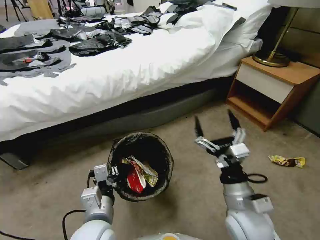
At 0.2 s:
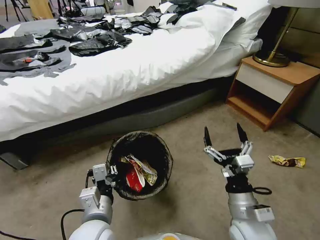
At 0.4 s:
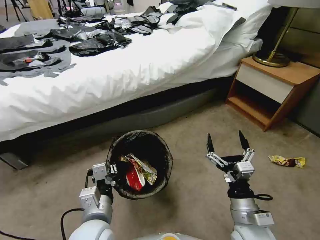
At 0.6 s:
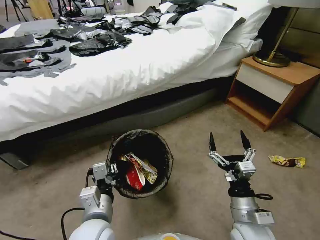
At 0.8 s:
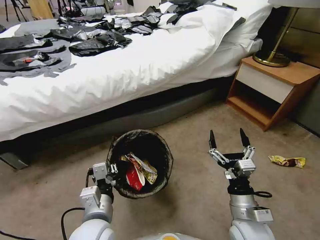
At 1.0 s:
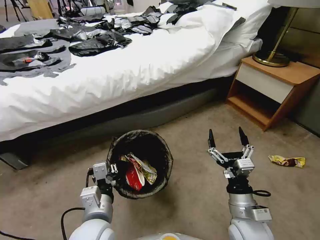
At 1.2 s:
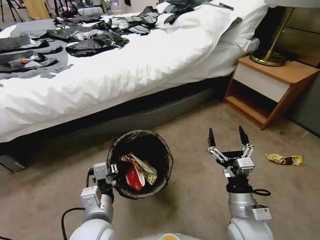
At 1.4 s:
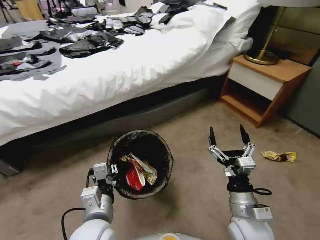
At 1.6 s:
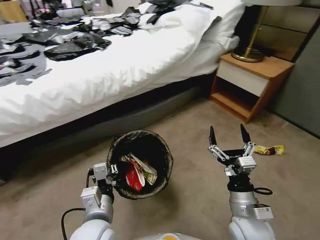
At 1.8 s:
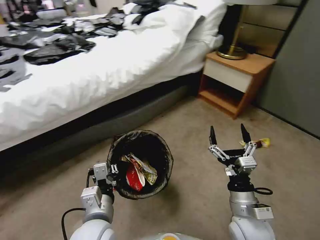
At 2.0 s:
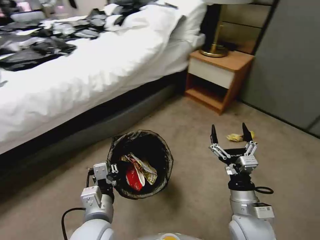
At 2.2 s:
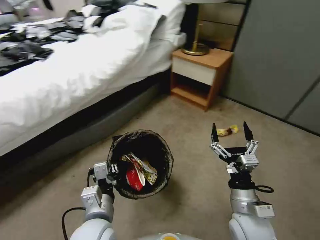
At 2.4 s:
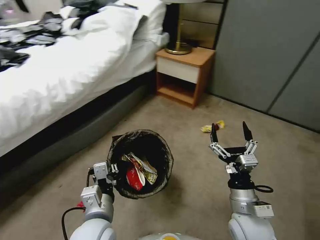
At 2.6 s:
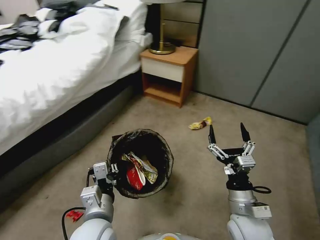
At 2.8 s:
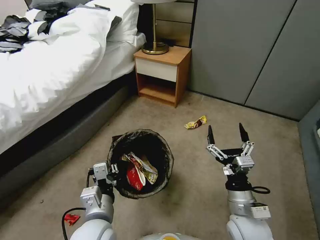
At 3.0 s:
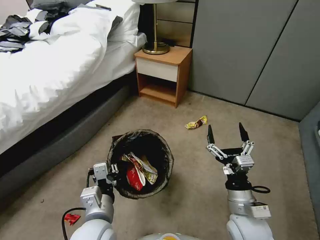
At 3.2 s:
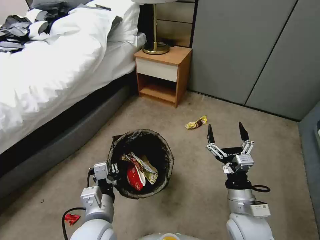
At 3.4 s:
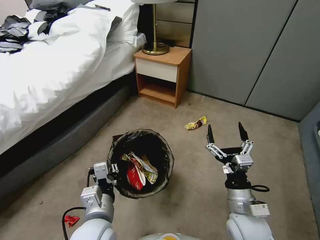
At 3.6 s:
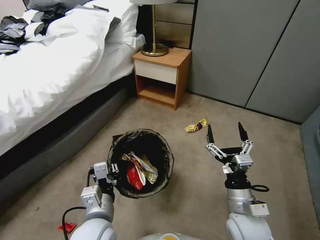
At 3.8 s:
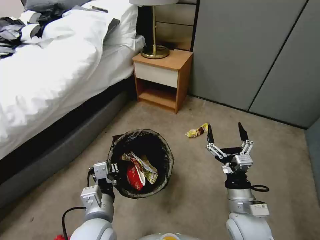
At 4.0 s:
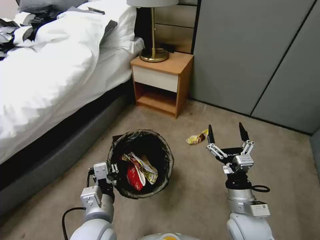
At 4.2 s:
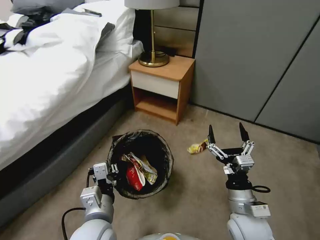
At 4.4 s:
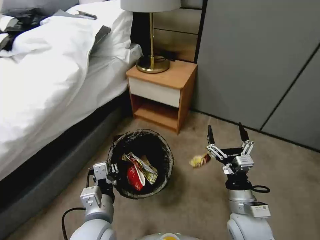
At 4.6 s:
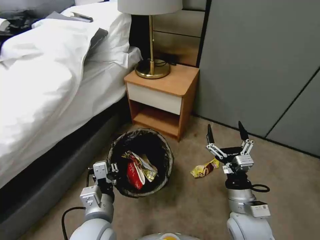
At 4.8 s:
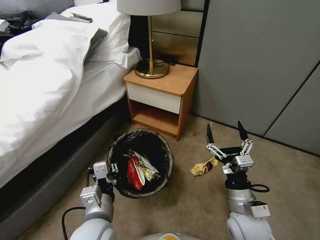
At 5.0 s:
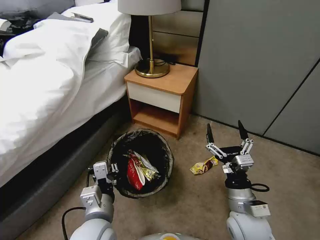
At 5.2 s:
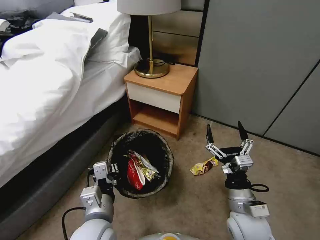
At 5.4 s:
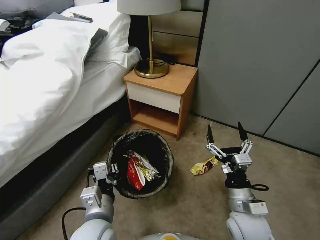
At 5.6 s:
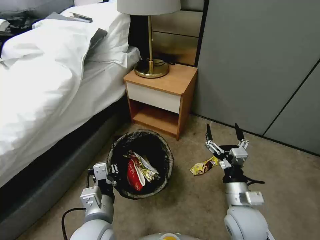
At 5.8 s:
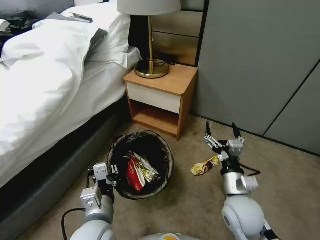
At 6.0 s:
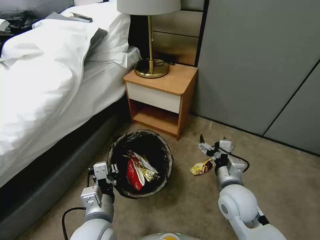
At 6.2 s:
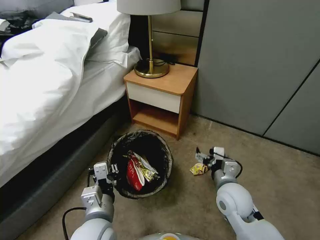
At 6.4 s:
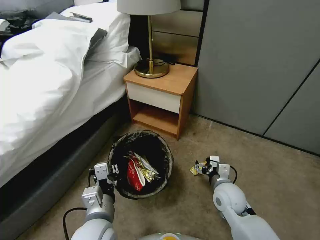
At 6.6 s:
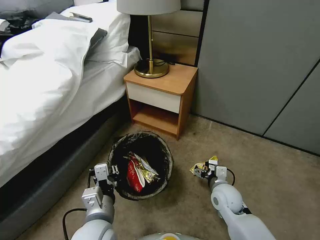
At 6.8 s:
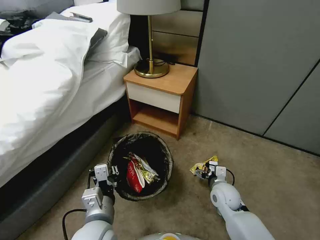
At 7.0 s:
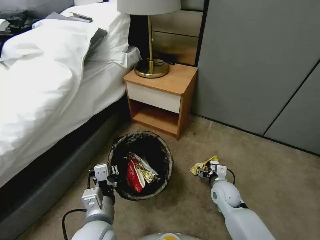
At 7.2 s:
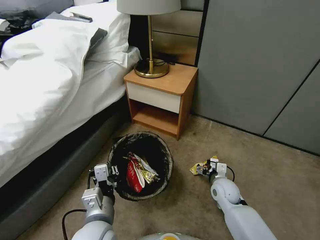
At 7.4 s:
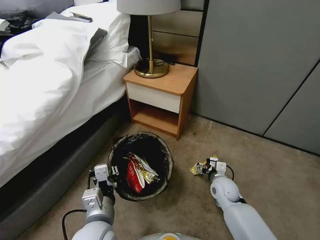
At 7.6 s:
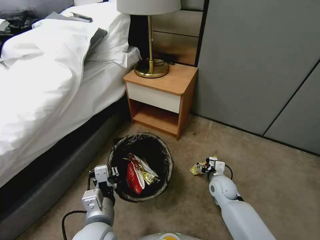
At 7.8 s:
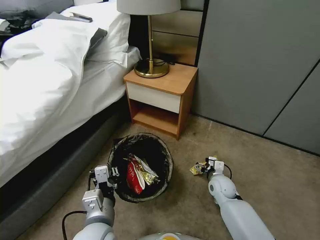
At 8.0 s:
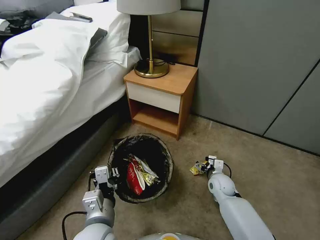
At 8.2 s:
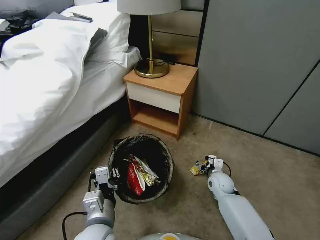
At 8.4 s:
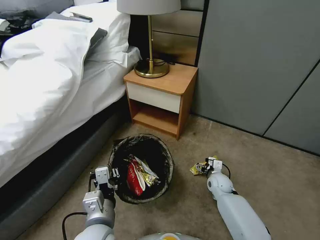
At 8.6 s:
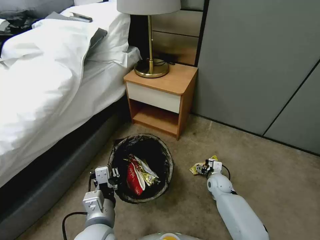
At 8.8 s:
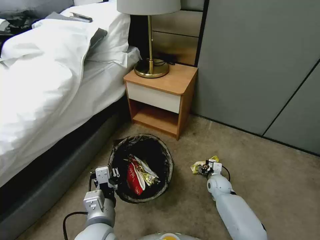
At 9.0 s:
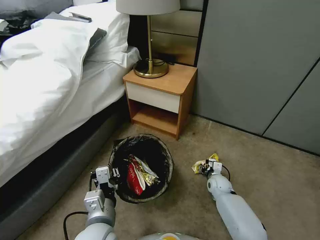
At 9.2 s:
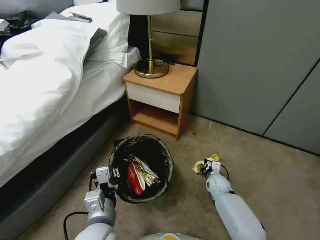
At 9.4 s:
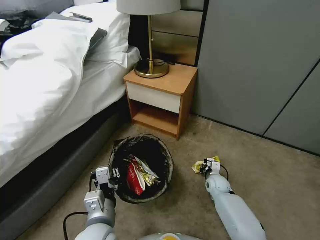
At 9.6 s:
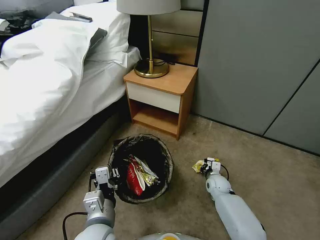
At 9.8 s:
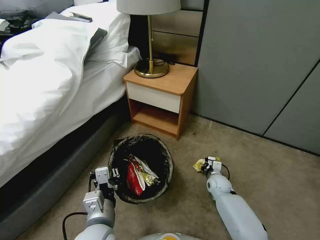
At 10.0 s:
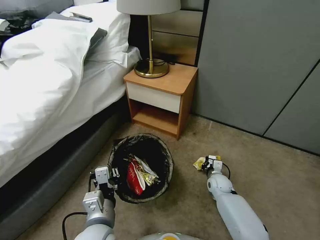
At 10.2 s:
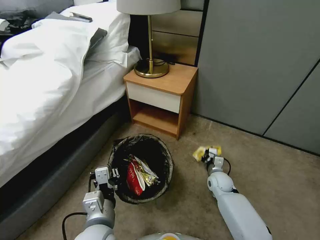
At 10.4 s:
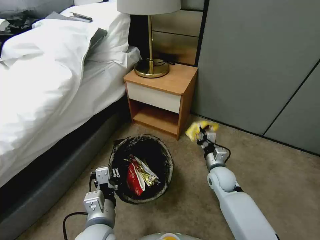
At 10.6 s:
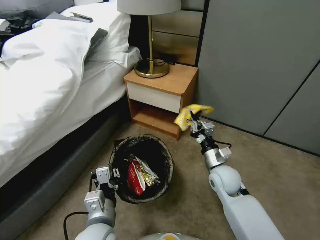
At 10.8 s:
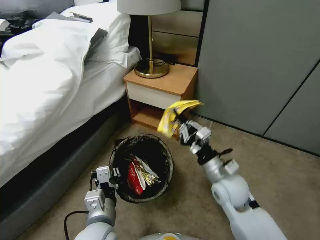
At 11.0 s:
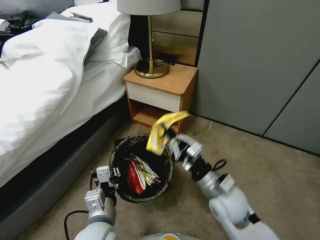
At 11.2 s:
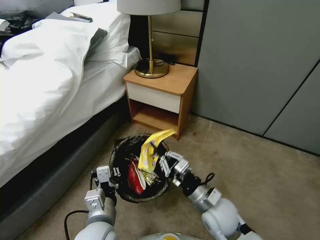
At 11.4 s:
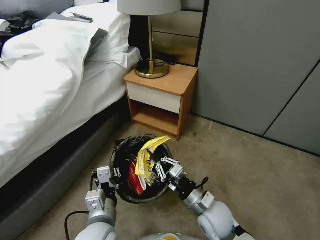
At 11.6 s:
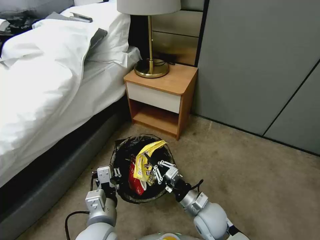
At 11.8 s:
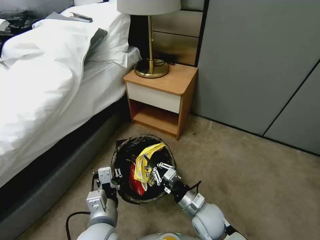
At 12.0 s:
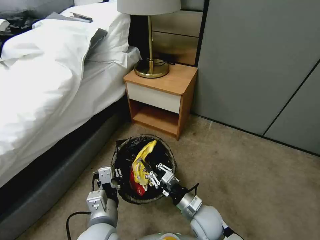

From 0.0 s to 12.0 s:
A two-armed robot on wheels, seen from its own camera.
Task of the whole recording: Pick up the trash bin, then pick up the garbage from the floor and place it into the trash bin.
From 0.0 s to 1.6 s: The right gripper moves roughly 5 cm.
From 4.4 s to 6.0 s: The right gripper heads forward, covering roughly 5 cm.
From 6.0 s to 7.6 s: The right gripper is displaced downward and forward by roughly 20 cm.
From 7.6 s to 9.0 s: The right gripper moves downward, about 10 cm, and closes up.
From 9.0 s to 10.4 s: The right gripper shifts some 10 cm upward, and closes its fingers.
From 10.4 s to 12.0 s: The right gripper shifts some 15 cm backward and to the left.

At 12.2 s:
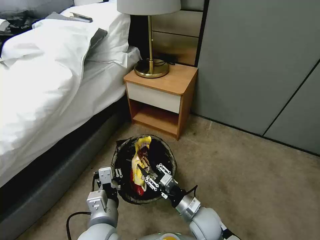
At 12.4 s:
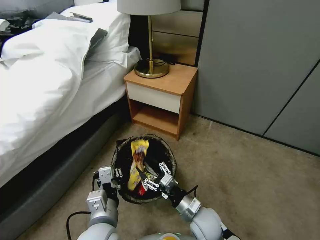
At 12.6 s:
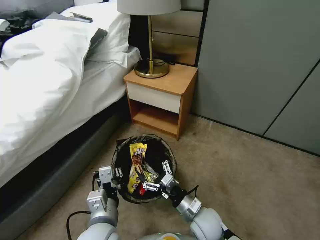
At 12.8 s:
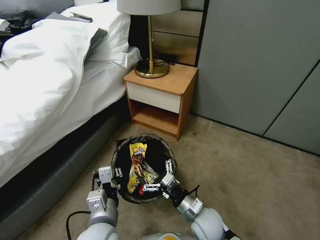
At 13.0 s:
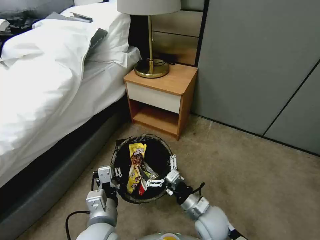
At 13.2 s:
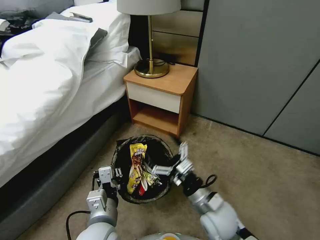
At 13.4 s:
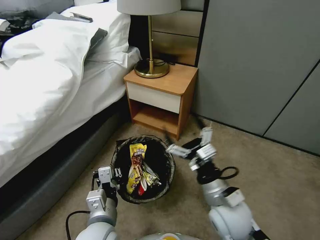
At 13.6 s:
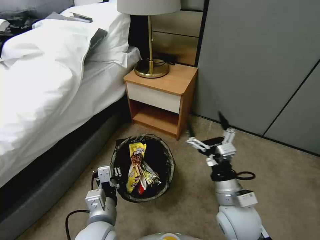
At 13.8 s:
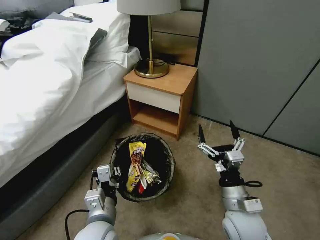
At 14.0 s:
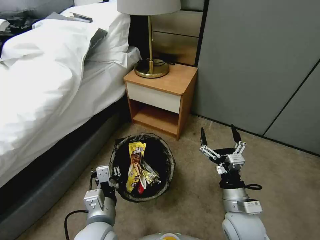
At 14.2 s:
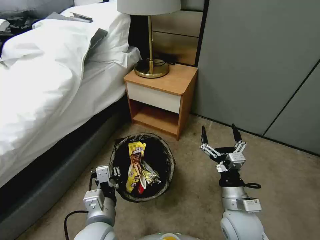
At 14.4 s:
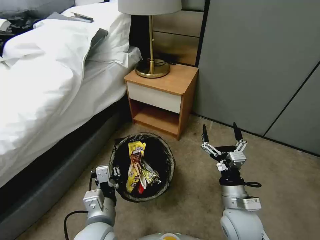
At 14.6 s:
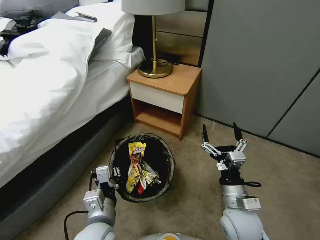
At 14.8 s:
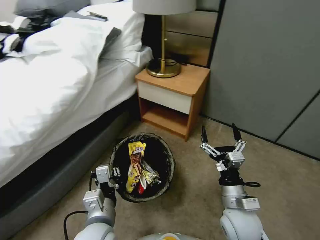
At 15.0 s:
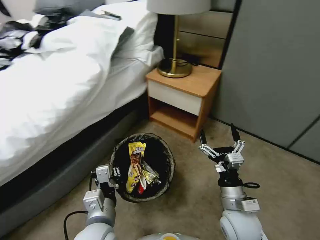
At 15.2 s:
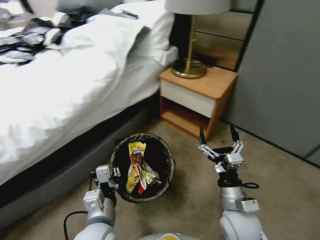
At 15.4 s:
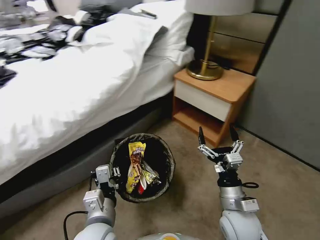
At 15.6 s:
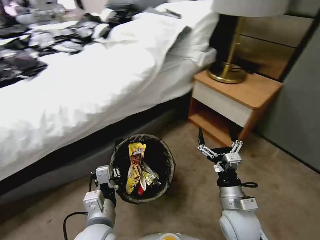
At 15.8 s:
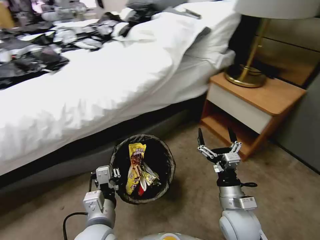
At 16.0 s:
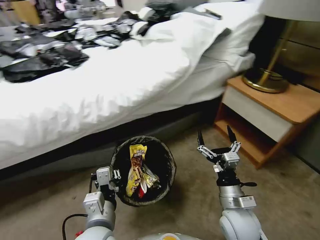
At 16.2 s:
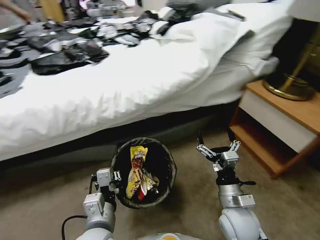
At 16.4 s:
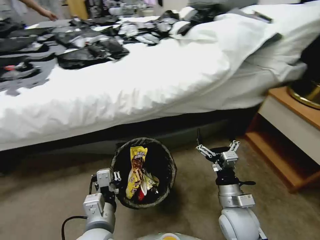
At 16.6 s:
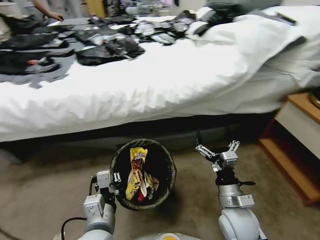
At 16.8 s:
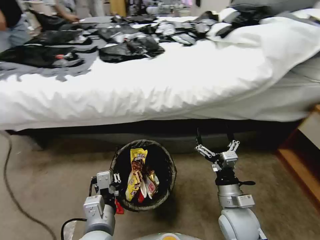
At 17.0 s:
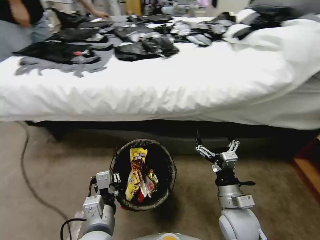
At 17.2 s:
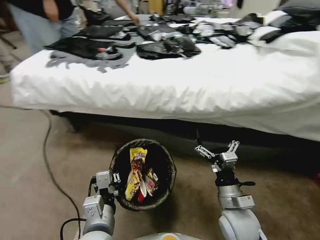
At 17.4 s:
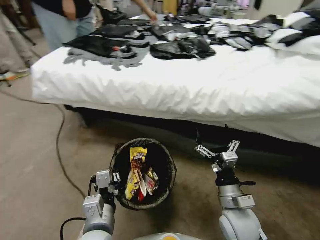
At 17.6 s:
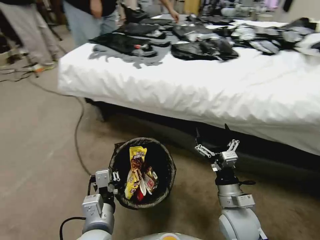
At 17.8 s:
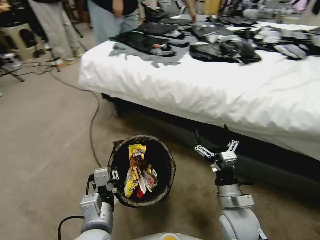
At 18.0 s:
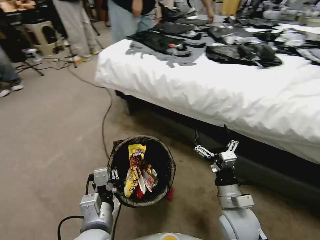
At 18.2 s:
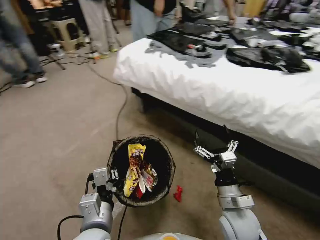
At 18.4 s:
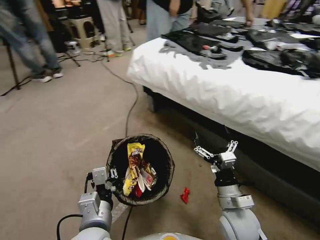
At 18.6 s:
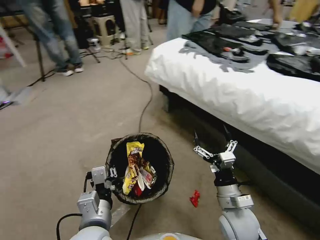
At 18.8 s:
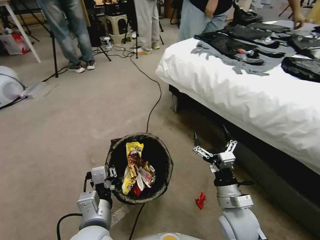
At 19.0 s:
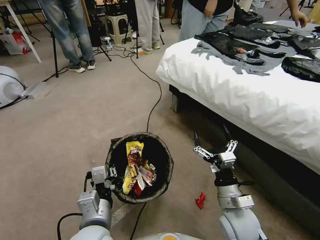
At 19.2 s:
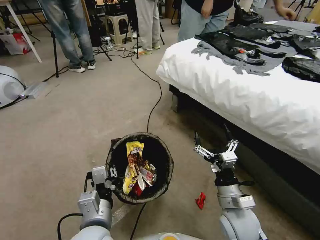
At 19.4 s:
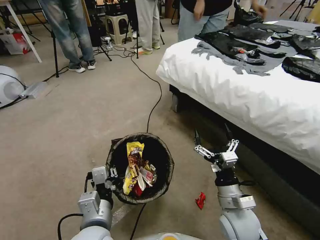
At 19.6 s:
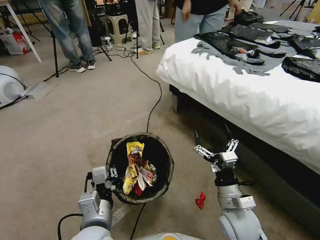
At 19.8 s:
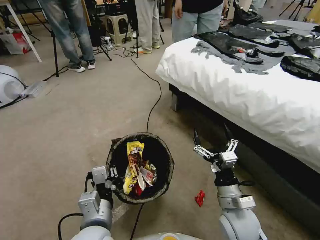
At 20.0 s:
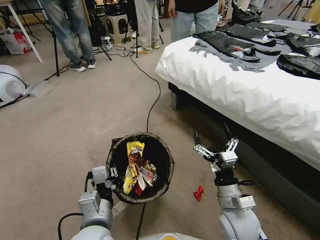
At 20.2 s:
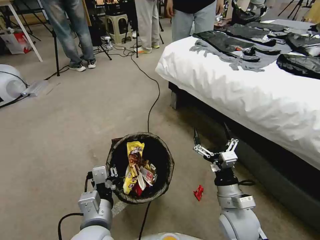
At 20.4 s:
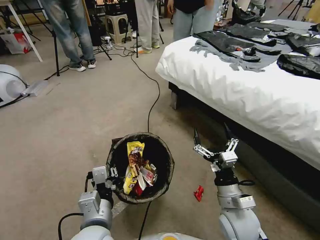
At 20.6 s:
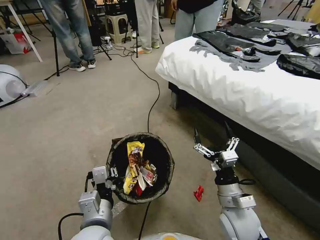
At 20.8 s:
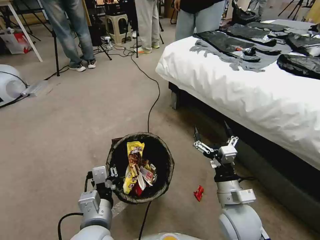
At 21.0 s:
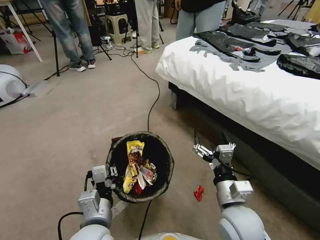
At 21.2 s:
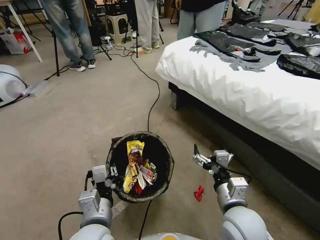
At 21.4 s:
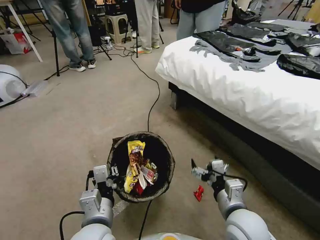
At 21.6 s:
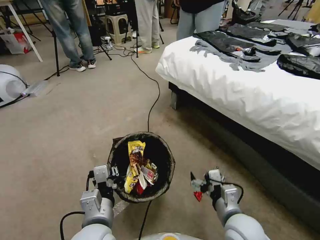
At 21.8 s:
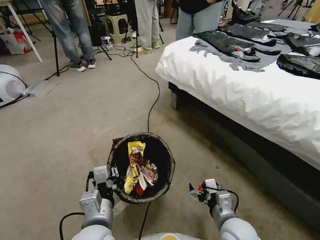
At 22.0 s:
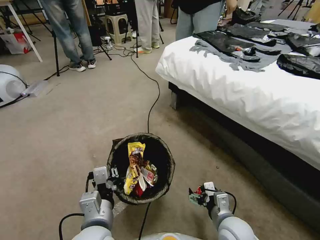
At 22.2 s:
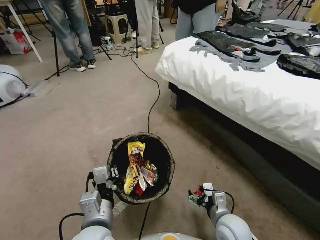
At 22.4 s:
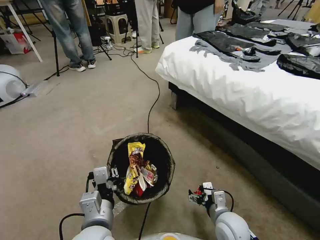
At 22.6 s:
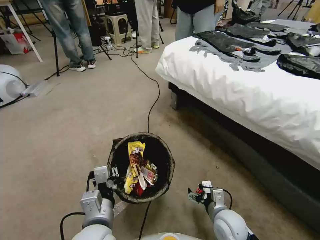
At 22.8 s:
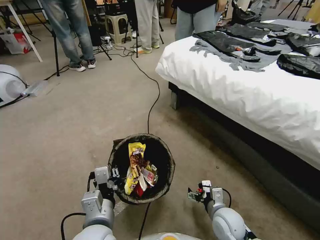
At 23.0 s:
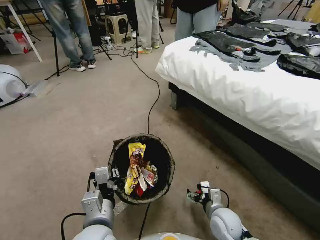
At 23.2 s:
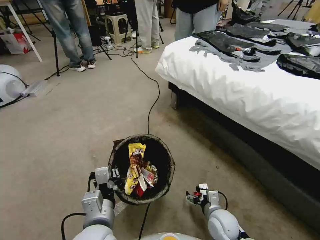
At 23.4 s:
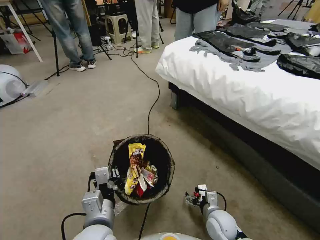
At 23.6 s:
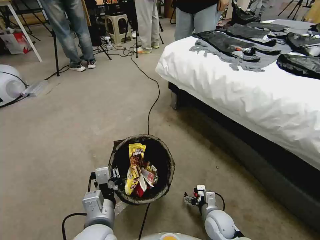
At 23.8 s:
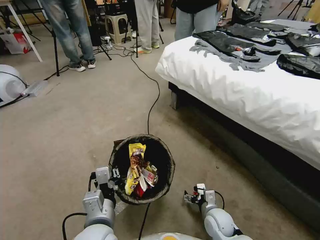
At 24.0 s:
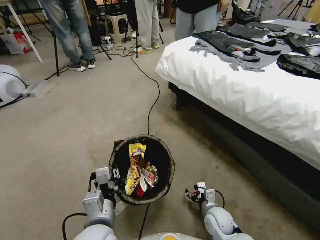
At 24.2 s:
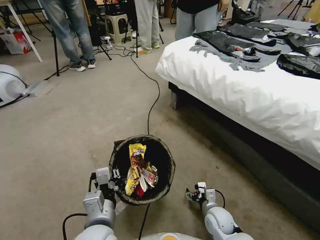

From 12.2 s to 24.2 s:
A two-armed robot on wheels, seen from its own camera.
Task of the whole recording: Pick up the trash bin, then pick up the garbage from the floor and place it into the trash bin.
From 12.2 s to 13.8 s: The right gripper is displaced upward and to the right by roughly 15 cm, and opens its fingers.
From 21.2 s to 22.6 s: The right gripper heads downward, covering some 15 cm.
From 22.6 s to 24.2 s: The right gripper shifts some 10 cm downward.
